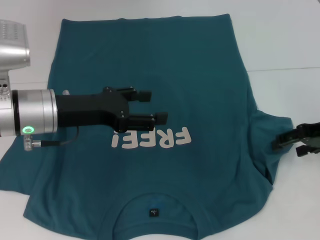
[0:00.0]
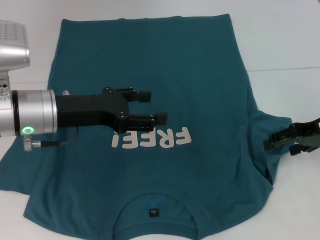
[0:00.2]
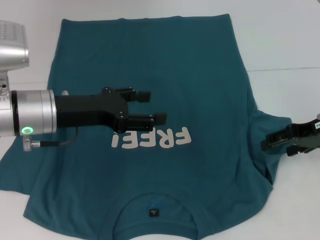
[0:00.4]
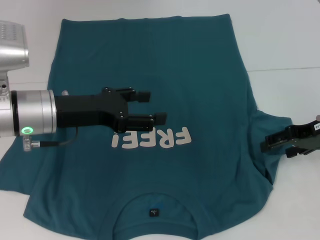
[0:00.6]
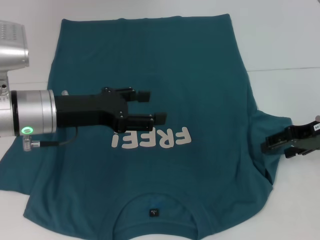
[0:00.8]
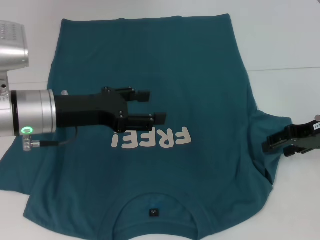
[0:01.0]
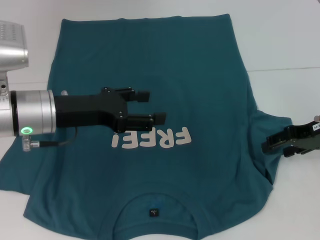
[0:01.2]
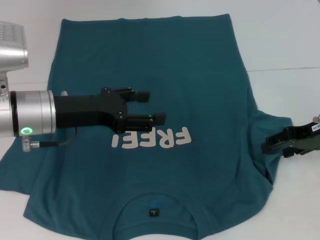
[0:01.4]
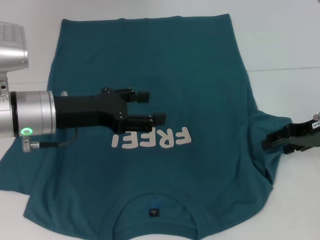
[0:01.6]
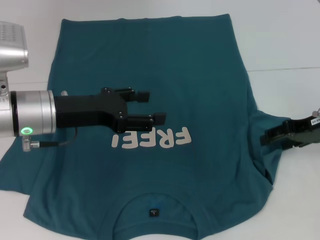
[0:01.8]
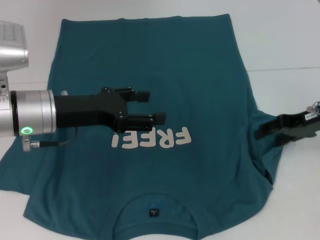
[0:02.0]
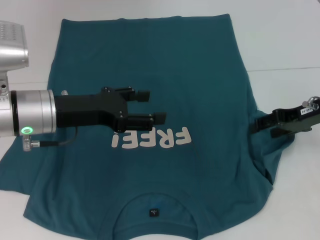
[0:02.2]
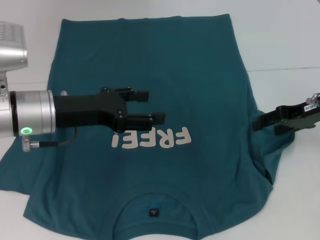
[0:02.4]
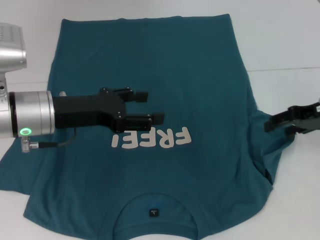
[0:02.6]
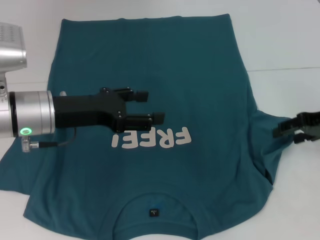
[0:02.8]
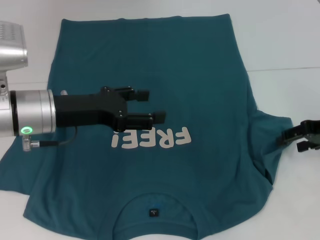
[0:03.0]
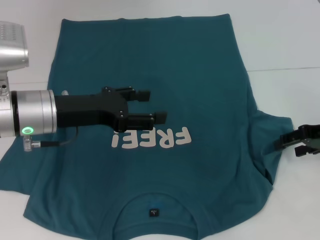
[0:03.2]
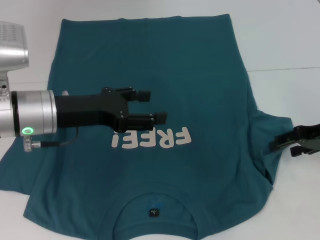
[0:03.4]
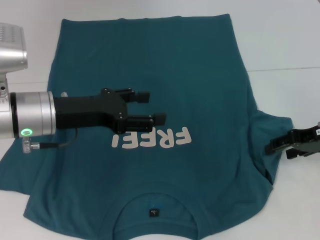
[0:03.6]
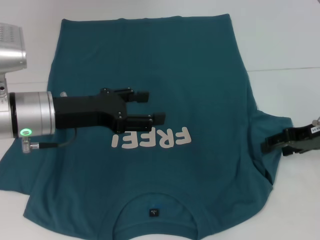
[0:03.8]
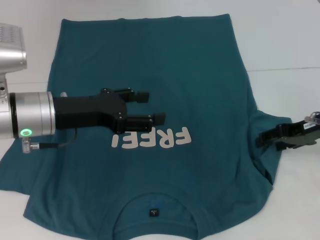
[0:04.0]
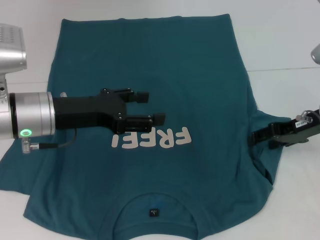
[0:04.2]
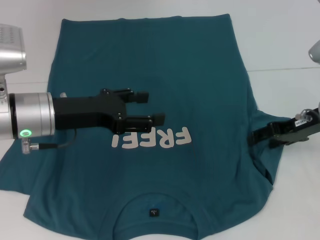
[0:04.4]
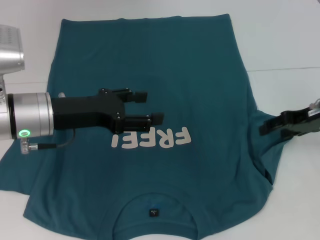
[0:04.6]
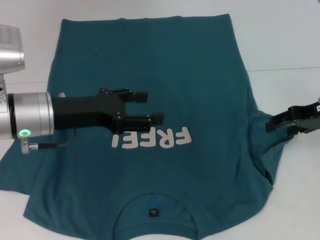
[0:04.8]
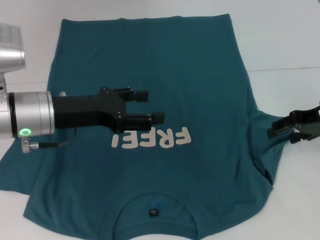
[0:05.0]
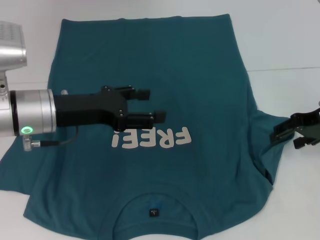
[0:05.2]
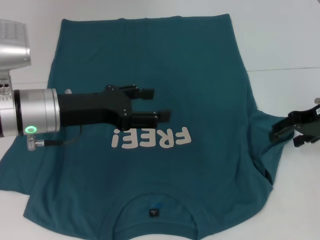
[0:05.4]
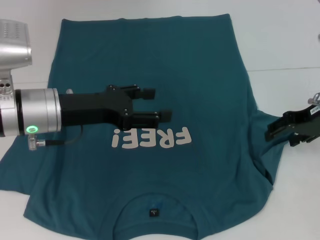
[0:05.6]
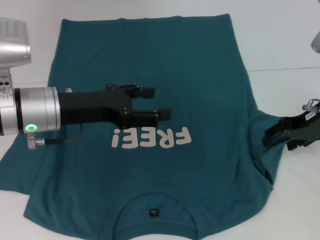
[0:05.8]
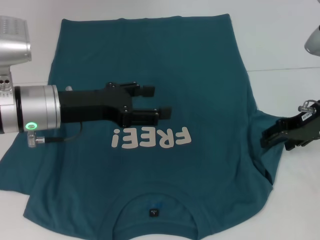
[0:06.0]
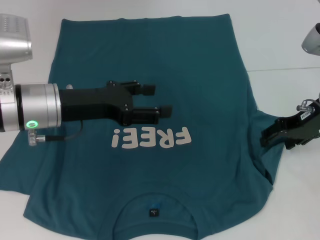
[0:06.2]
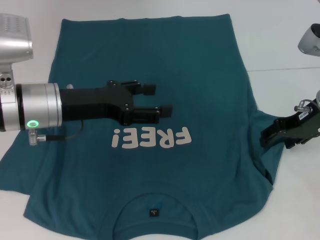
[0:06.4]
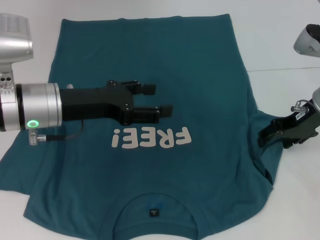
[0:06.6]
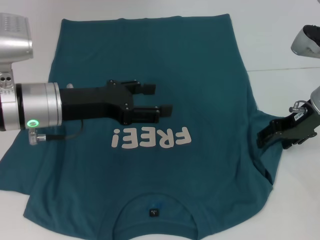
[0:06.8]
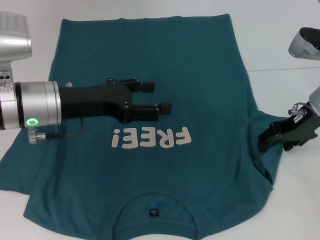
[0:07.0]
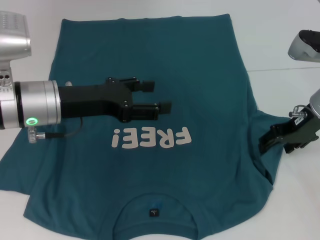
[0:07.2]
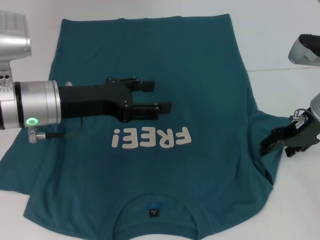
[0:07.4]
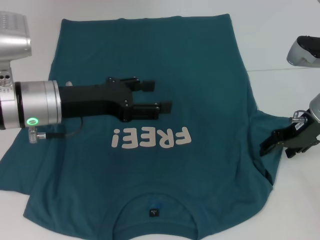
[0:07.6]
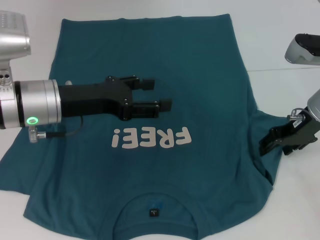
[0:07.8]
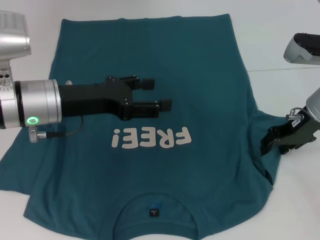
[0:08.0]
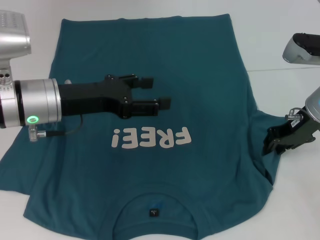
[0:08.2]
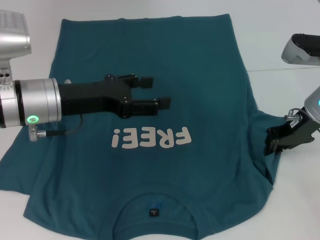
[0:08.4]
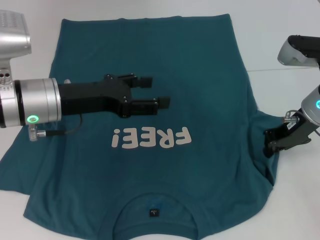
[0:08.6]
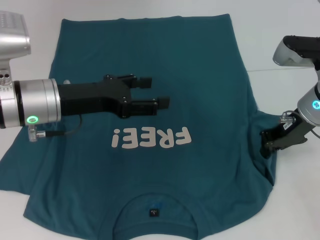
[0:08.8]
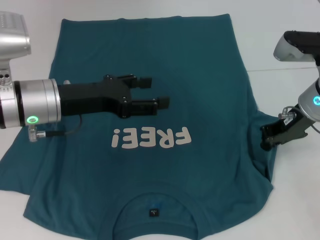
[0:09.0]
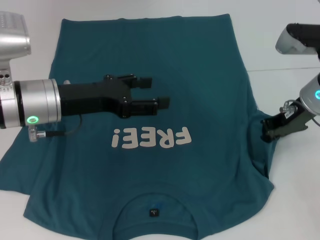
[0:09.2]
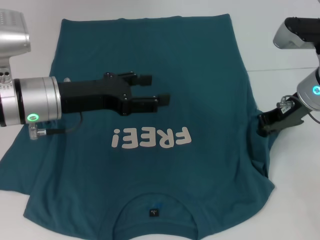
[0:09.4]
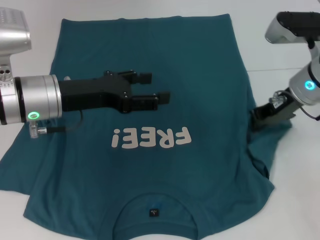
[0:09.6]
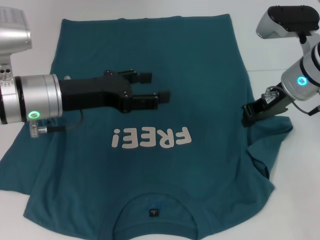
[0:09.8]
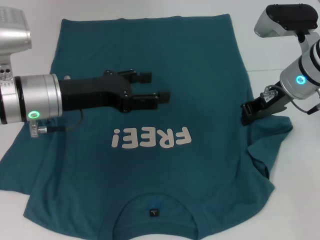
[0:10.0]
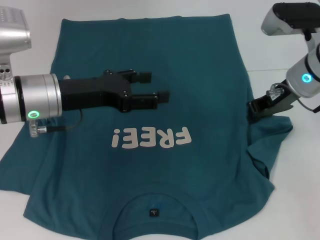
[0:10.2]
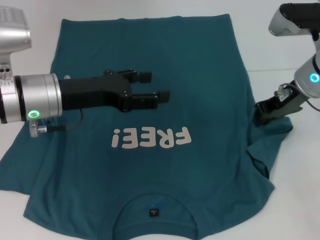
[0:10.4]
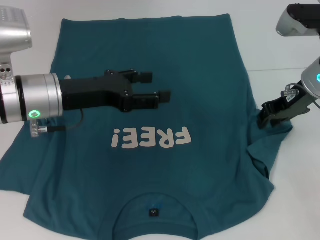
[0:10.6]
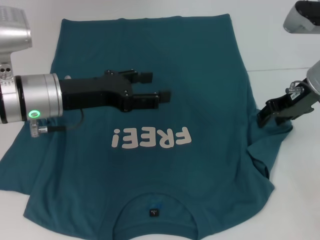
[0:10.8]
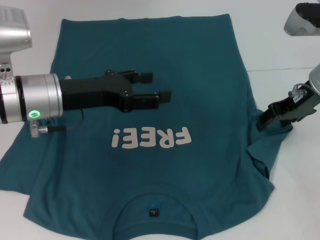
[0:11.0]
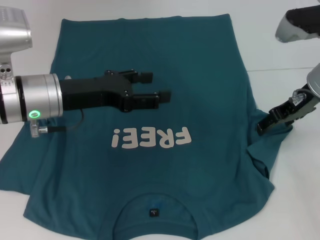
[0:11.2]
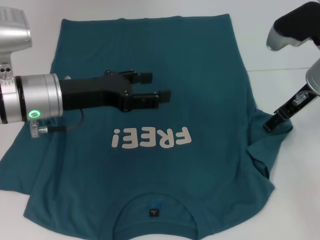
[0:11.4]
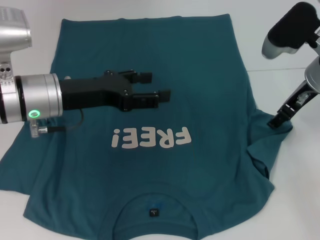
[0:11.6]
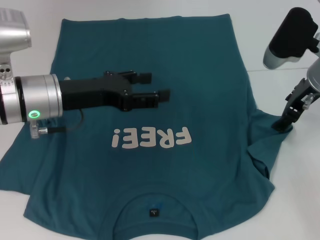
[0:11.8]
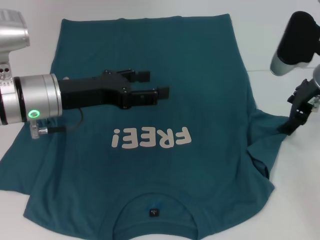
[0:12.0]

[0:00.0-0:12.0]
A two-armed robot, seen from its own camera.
0:00.0 to 0:03.0: The grippers make only small movements.
0:03.0 to 0:04.4: The right gripper shifts by approximately 5 cm.
0:04.4 to 0:07.6: There are only small adjustments of the grippers.
0:07.6 to 0:09.0: The right gripper closes.
0:09.0 to 0:10.4: The grippers stay close to where they were, moving slightly.
0:10.4 to 0:12.0: The right gripper opens its fingers.

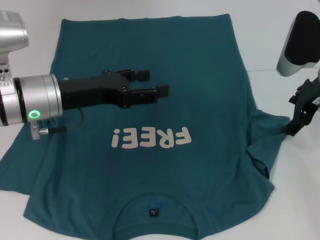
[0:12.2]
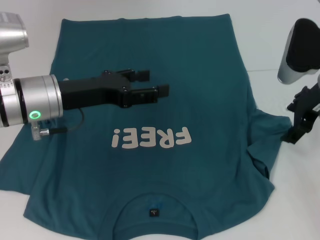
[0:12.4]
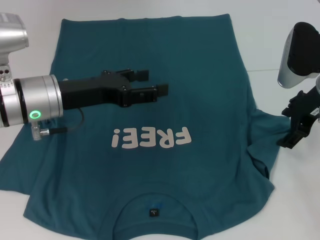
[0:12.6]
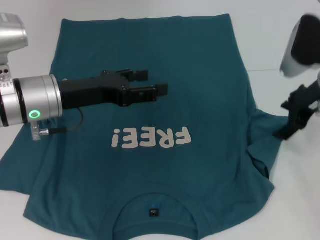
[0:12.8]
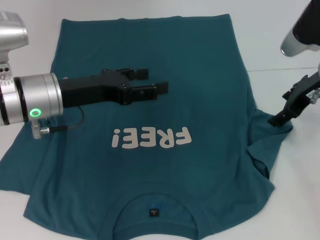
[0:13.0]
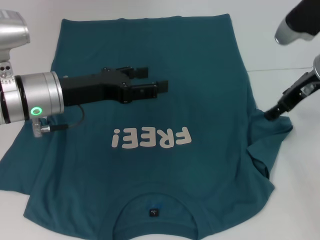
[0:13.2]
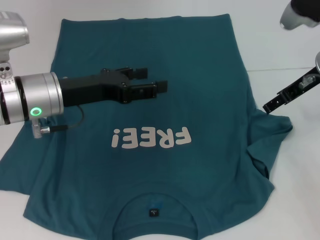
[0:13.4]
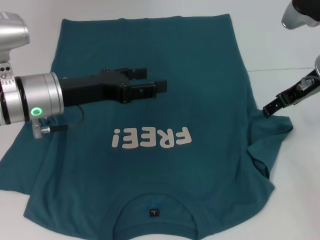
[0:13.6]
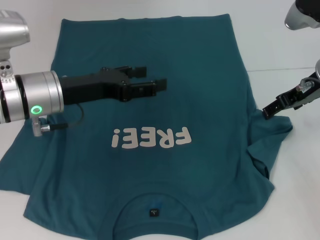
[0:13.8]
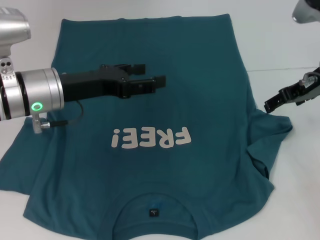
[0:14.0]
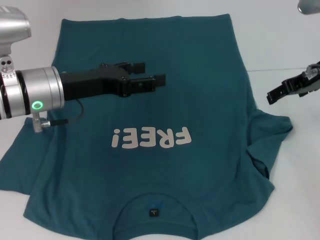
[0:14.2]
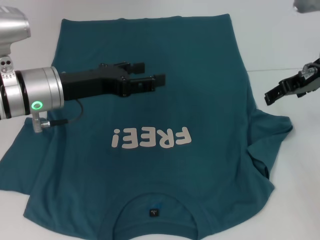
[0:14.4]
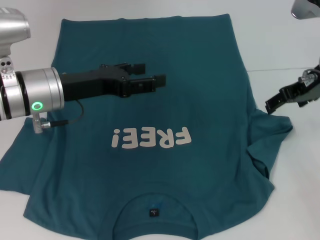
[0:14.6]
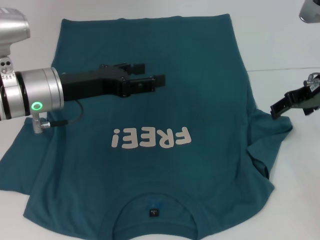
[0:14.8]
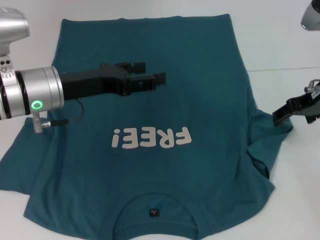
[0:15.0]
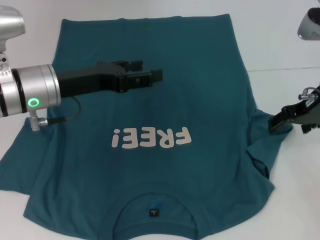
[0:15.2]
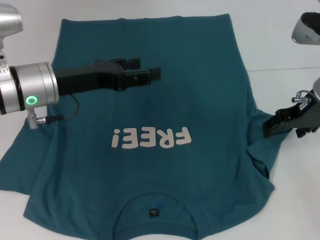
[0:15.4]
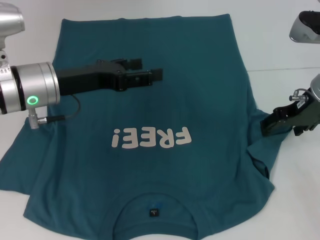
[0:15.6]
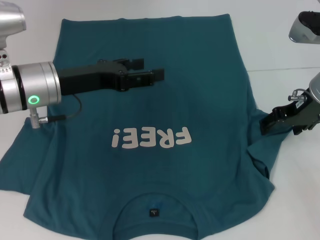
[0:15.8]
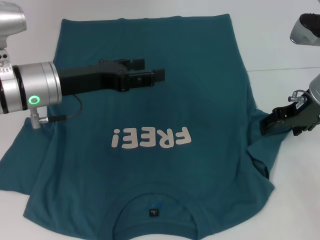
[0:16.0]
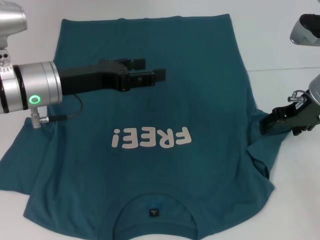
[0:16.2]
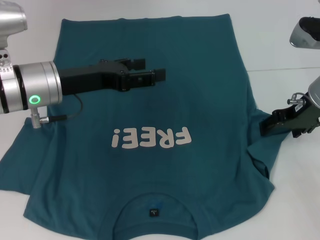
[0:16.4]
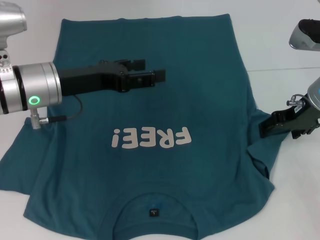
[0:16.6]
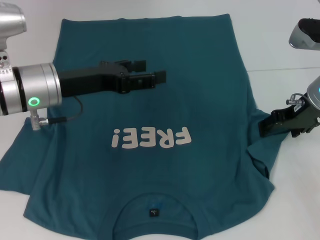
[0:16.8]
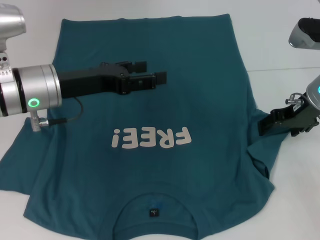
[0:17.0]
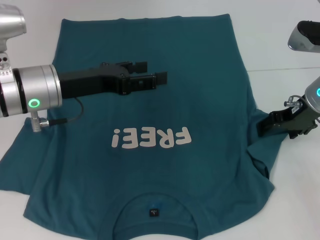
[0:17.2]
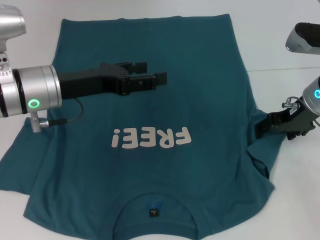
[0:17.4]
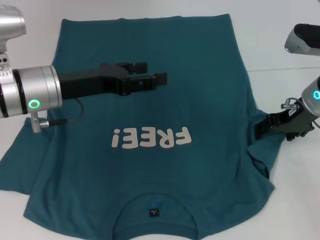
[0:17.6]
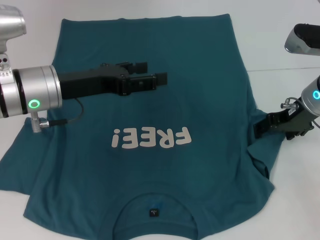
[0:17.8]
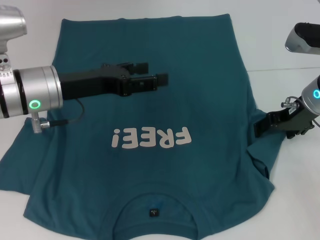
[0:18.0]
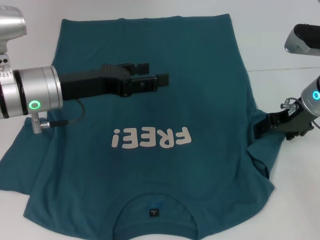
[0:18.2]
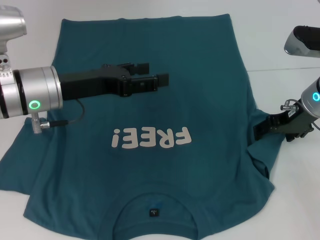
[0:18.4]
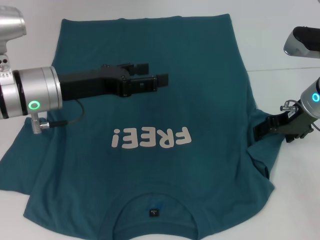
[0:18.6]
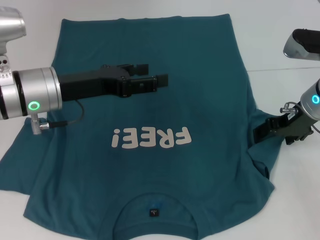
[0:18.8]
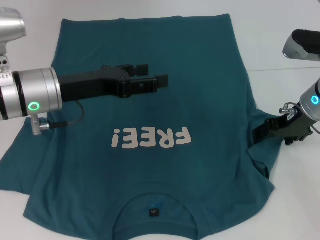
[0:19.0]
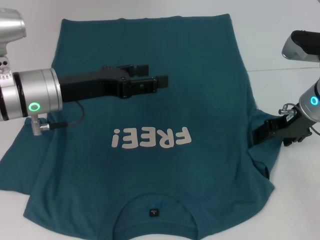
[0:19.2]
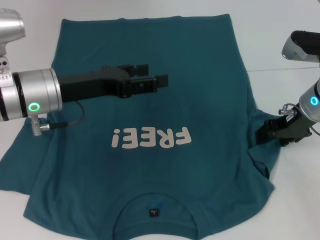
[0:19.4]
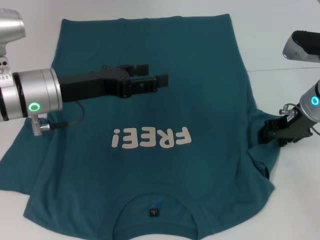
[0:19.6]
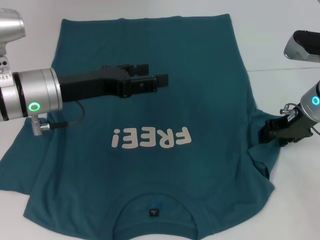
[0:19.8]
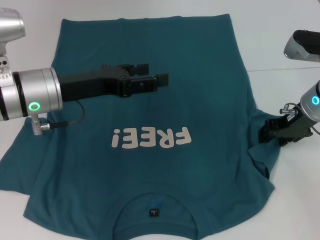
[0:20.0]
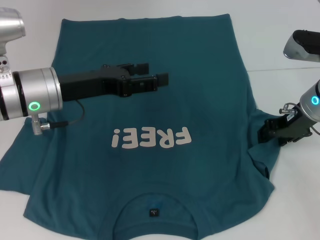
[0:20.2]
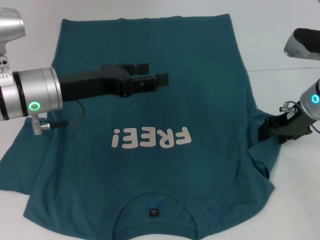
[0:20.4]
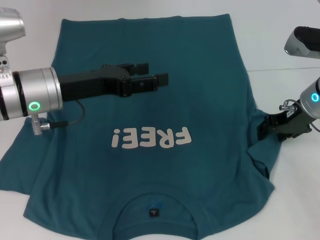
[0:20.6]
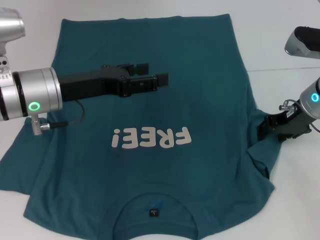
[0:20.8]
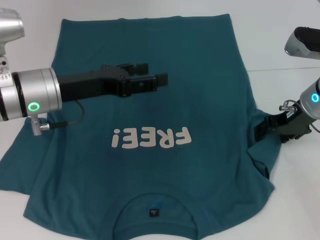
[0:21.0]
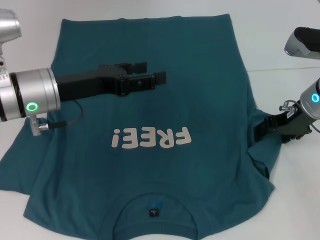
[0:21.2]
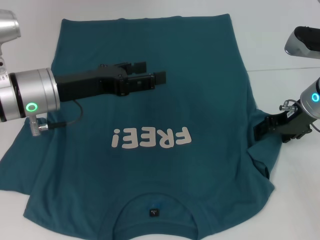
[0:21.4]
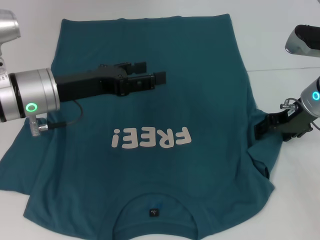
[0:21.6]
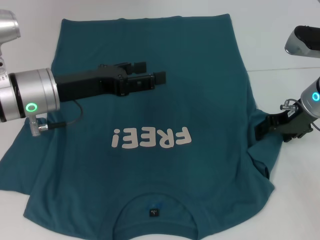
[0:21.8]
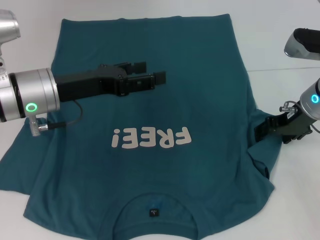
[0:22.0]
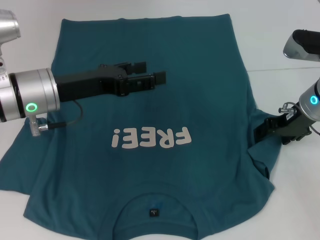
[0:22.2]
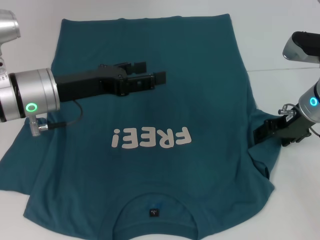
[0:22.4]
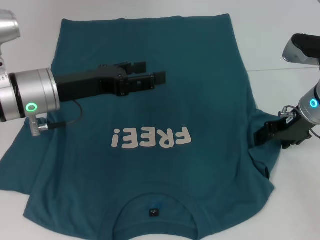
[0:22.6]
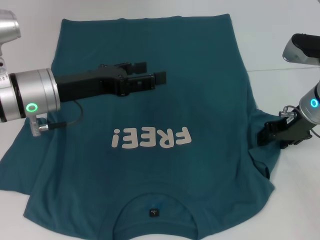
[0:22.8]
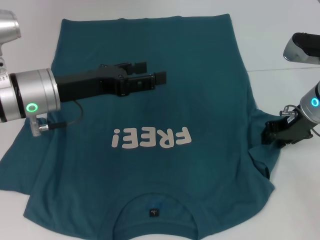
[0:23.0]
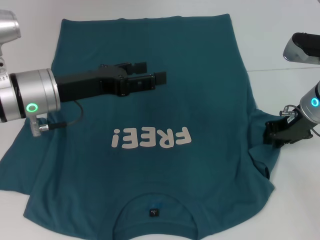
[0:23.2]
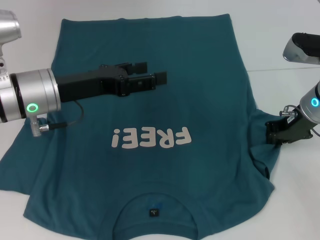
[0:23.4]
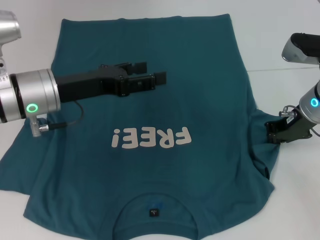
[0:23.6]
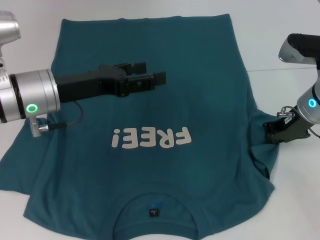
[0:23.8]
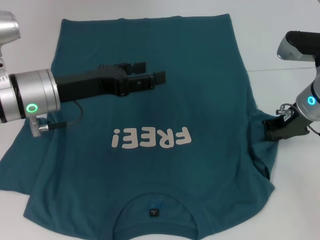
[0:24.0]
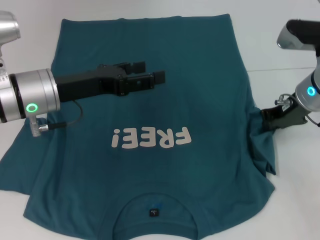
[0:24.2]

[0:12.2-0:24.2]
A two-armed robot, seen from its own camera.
0:13.8 to 0:15.2: The grippers move only a little.
0:15.2 to 0:16.6: The grippers stay close to where they were, moving slightly.
0:16.6 to 0:18.2: Both grippers stay put.
0:18.2 to 0:19.8: The right gripper closes its fingers.
0:19.8 to 0:22.6: Neither gripper changes place.
0:22.6 to 0:24.2: The right gripper closes.
